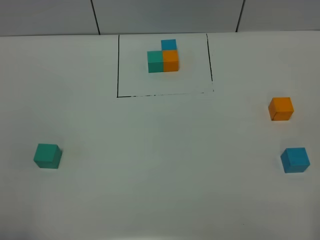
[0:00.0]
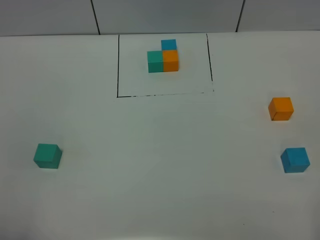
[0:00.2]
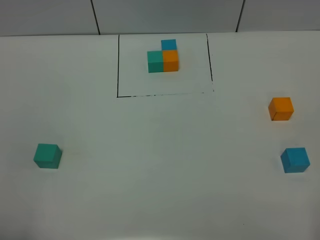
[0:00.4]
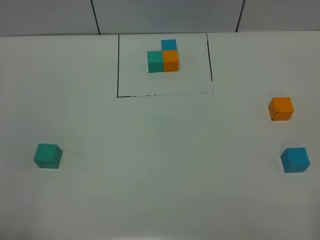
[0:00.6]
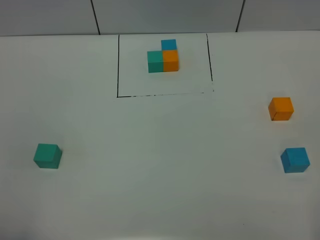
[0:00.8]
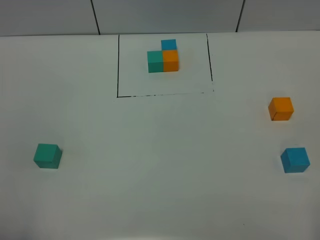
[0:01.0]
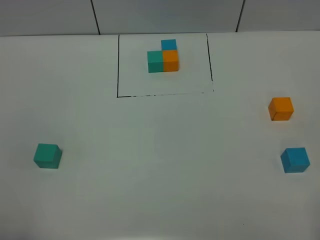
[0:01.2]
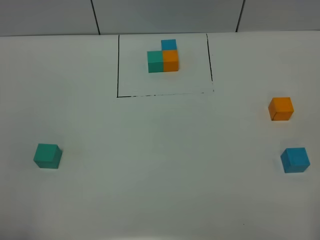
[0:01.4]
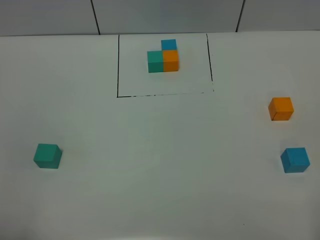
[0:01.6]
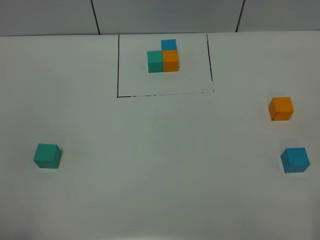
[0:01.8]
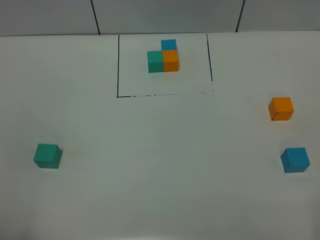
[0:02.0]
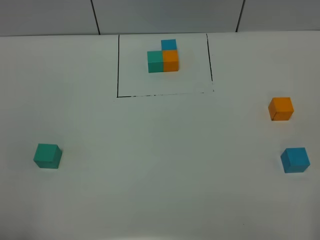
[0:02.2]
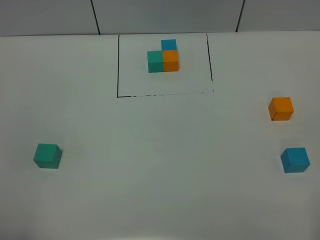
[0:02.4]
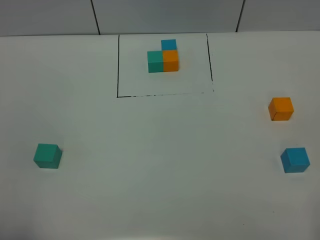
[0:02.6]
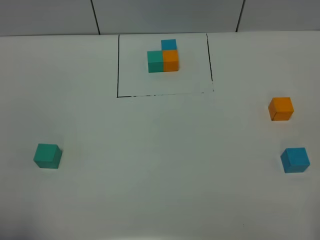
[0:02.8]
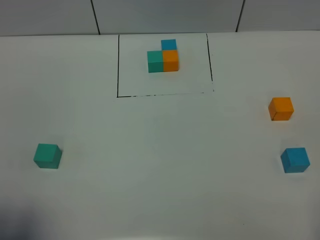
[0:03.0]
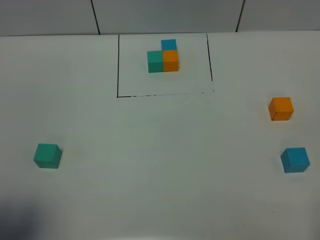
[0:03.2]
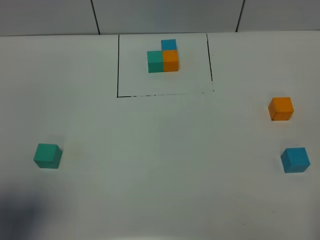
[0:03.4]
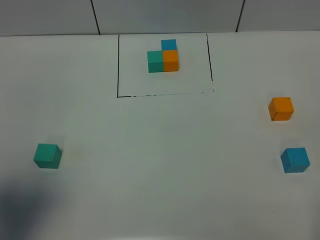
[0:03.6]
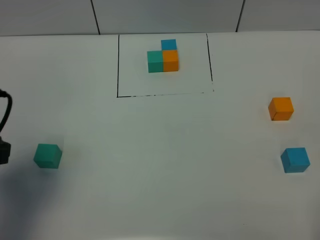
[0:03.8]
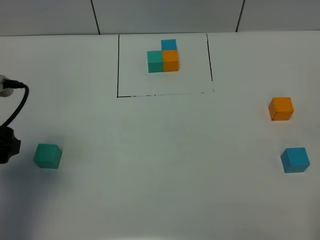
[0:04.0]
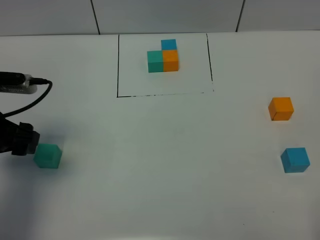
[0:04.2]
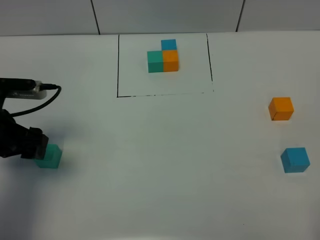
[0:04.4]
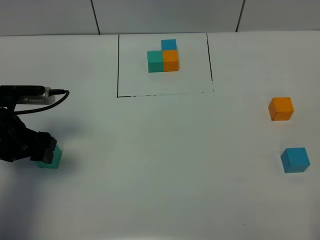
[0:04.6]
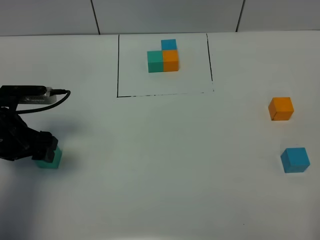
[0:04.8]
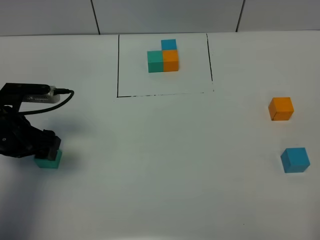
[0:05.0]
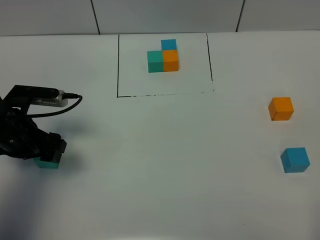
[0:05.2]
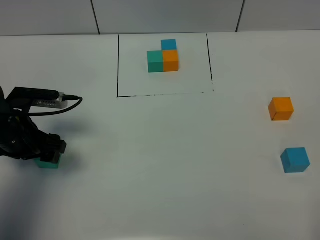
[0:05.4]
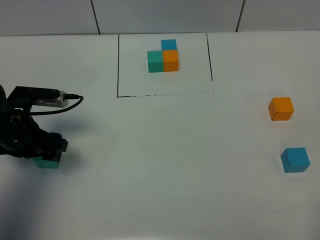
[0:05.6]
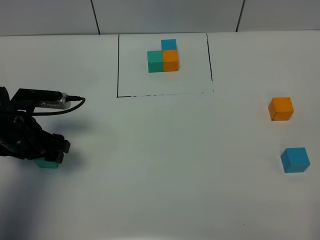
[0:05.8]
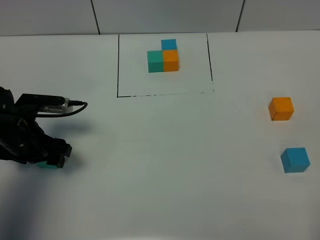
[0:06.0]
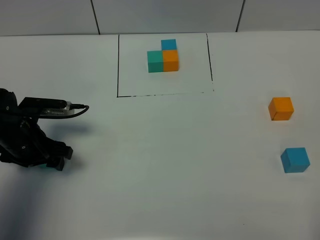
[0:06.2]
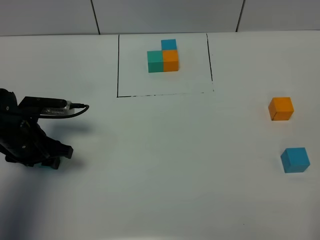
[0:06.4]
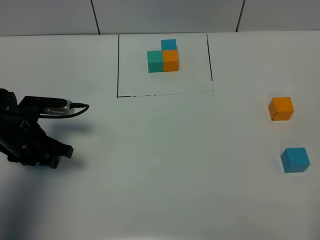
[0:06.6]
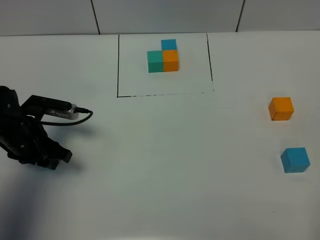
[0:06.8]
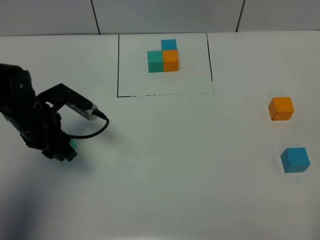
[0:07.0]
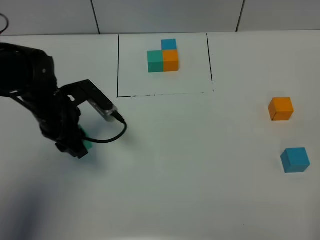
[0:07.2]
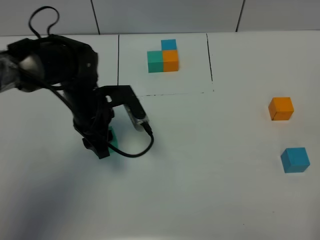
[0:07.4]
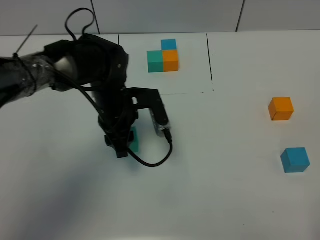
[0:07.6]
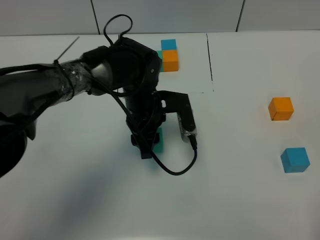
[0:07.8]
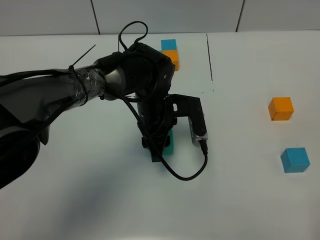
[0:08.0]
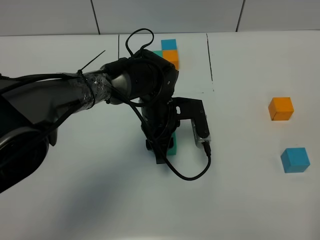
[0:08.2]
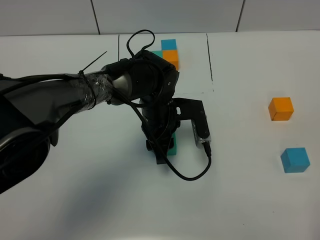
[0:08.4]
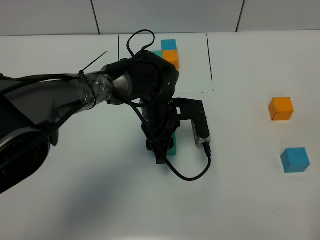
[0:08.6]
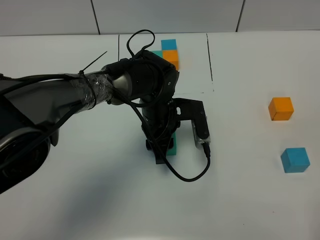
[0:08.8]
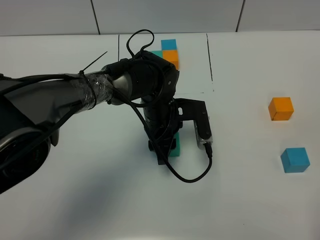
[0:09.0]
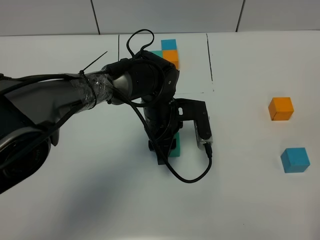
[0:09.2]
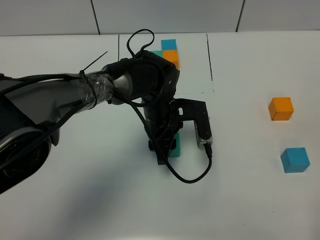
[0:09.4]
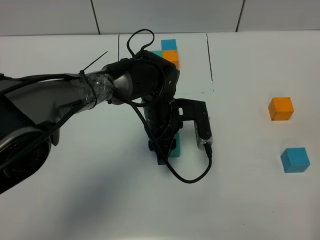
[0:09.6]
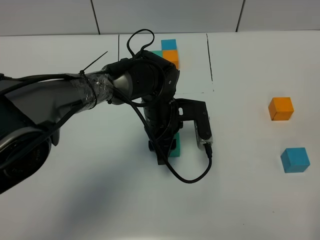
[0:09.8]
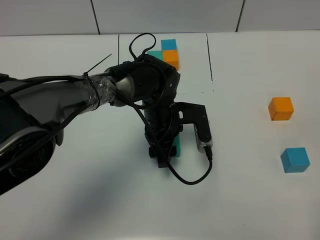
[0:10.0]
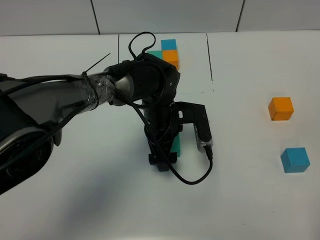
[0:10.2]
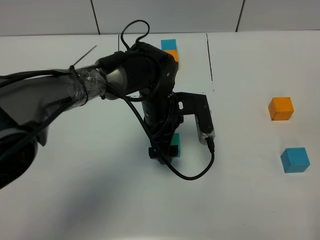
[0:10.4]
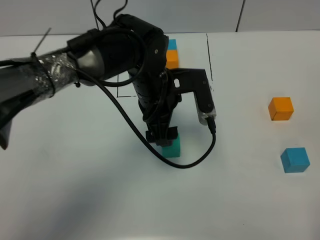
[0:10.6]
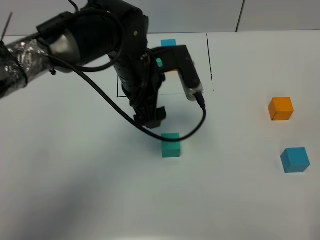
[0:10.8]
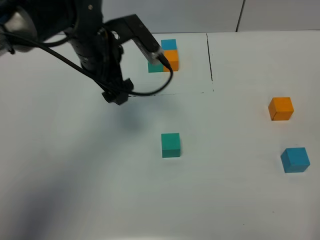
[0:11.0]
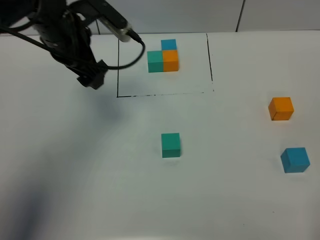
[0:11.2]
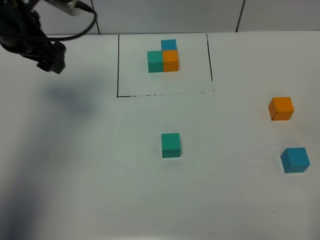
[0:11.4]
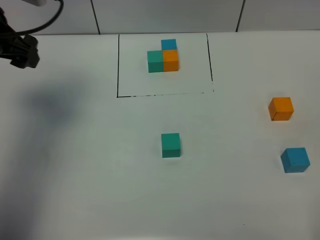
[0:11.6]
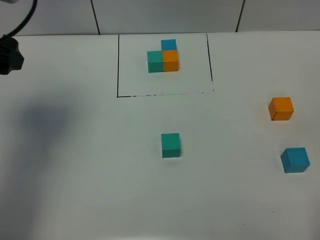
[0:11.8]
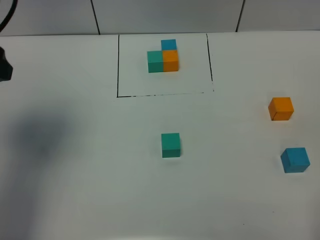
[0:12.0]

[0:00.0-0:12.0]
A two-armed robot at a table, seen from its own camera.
Task of the whole recording: According to the building block template in front, assemble the scattered blocks together.
Step, 0:00.0 to 0:10.0: Put the green build block in the center of the table.
0:00.0 to 0:01.6: Neither gripper changes place.
0:01.6 to 0:03.0: The left gripper shifts by some 5 cm.
0:03.0 to 0:04.4: The left gripper is displaced forward and downward by roughly 25 cm.
0:04.4 to 0:06.0: The left gripper goes some 5 cm downward.
0:06.0 to 0:07.6: The left gripper goes approximately 20 cm to the right, and closes its fingers.
0:07.6 to 0:09.0: The left gripper travels to the right by about 10 cm.
0:09.0 to 0:10.4: The left gripper opens up.
0:10.4 to 0:12.0: The left gripper heads to the left and upward, covering some 35 cm.

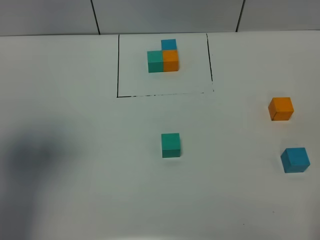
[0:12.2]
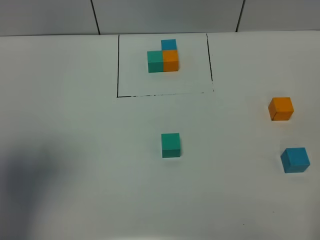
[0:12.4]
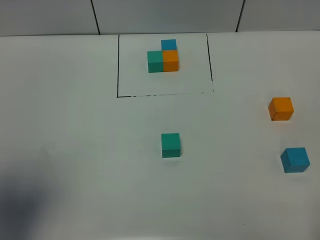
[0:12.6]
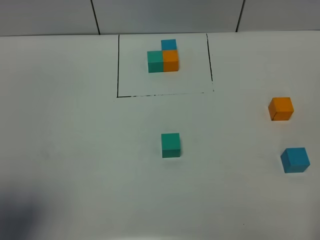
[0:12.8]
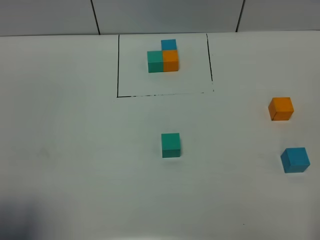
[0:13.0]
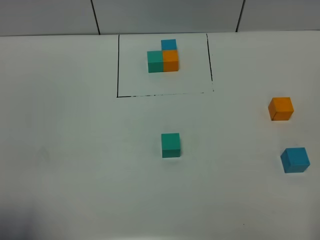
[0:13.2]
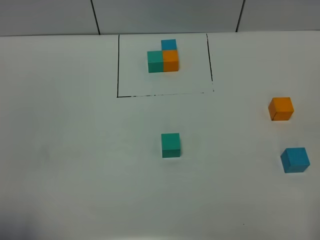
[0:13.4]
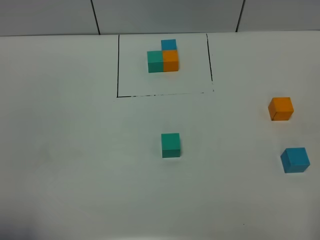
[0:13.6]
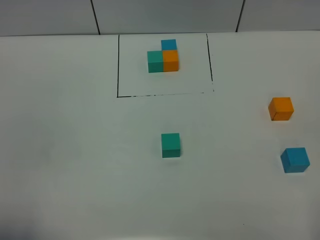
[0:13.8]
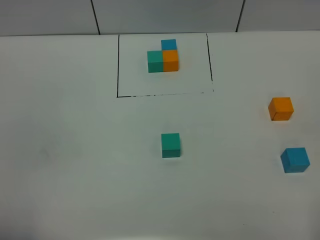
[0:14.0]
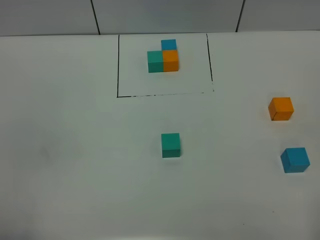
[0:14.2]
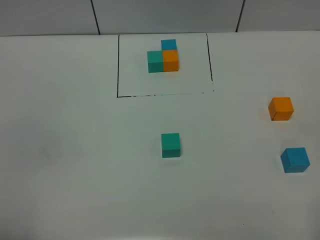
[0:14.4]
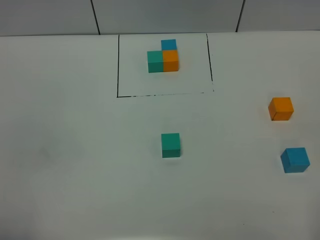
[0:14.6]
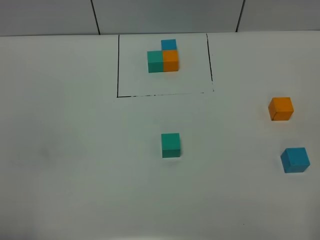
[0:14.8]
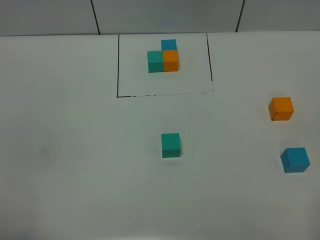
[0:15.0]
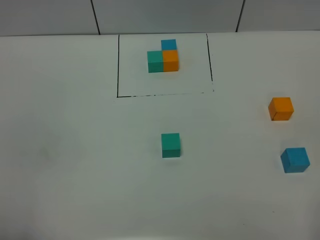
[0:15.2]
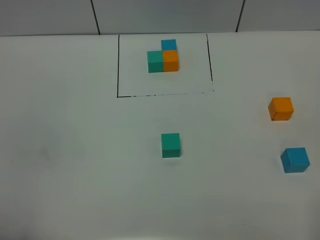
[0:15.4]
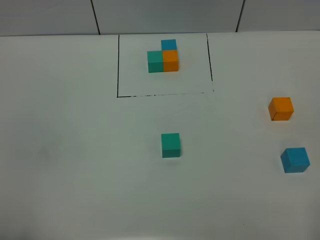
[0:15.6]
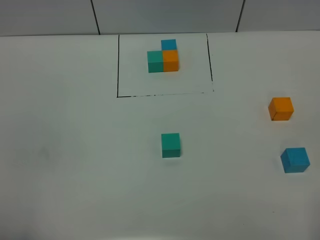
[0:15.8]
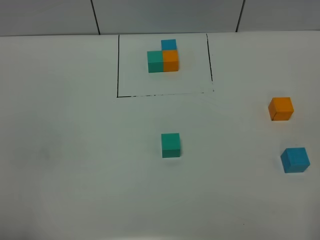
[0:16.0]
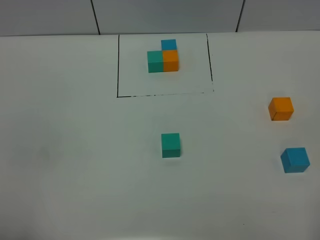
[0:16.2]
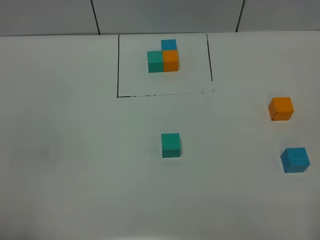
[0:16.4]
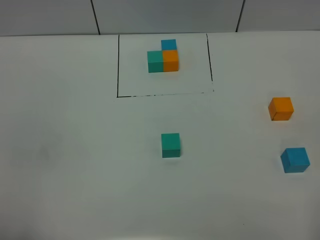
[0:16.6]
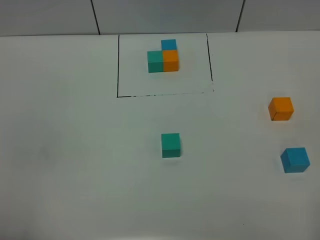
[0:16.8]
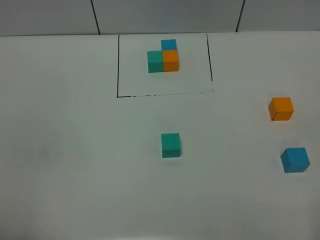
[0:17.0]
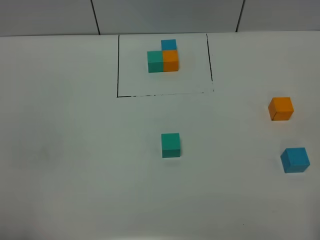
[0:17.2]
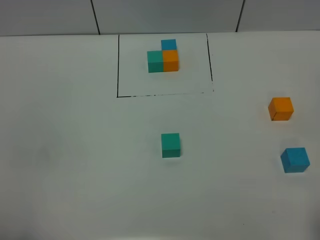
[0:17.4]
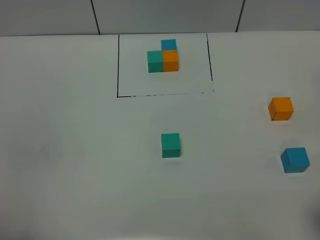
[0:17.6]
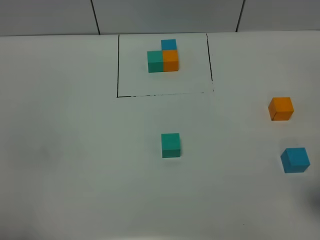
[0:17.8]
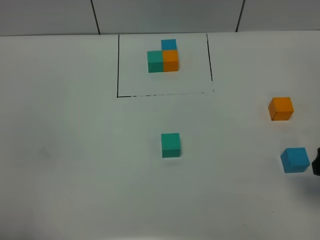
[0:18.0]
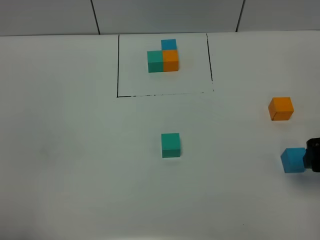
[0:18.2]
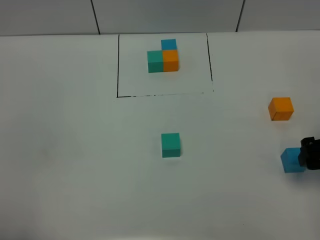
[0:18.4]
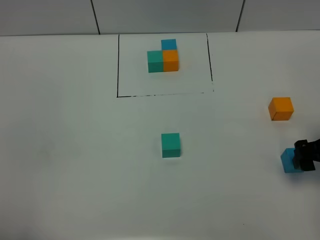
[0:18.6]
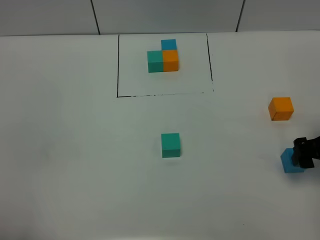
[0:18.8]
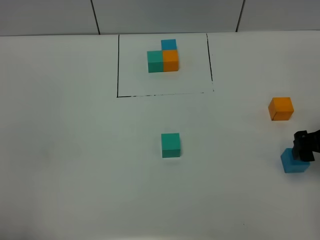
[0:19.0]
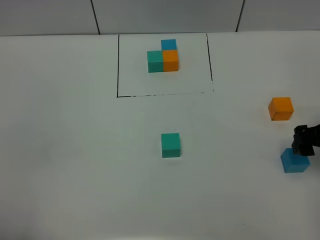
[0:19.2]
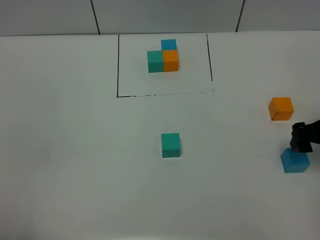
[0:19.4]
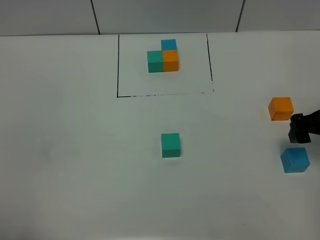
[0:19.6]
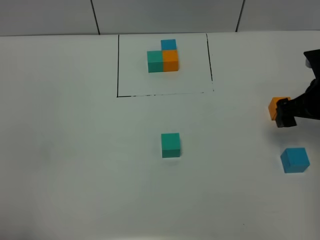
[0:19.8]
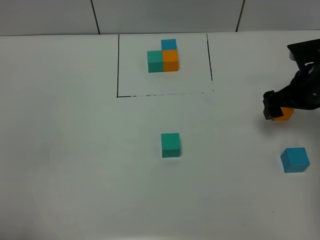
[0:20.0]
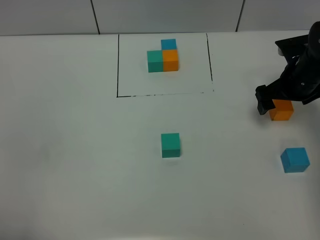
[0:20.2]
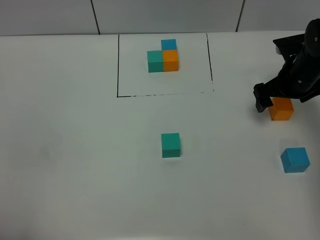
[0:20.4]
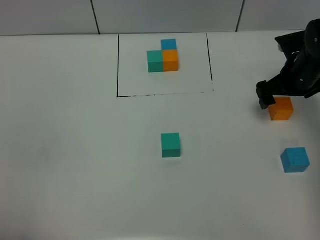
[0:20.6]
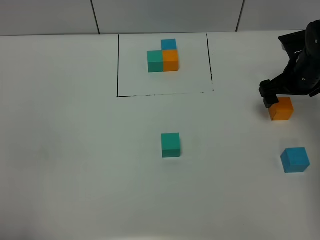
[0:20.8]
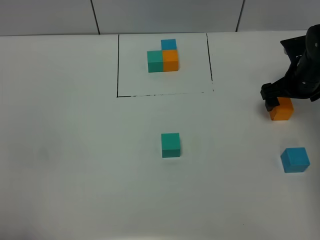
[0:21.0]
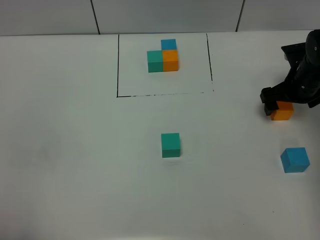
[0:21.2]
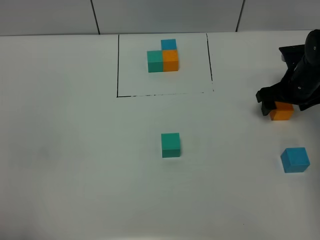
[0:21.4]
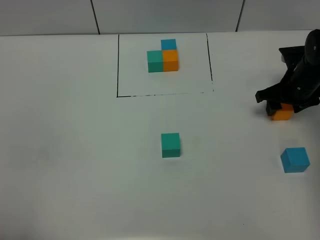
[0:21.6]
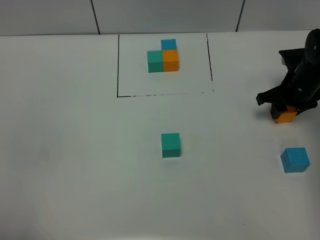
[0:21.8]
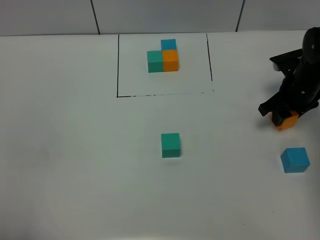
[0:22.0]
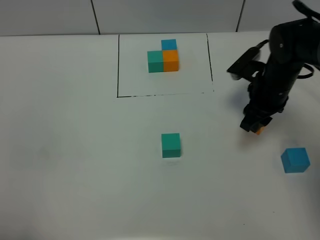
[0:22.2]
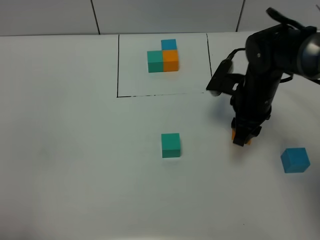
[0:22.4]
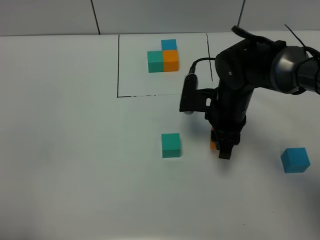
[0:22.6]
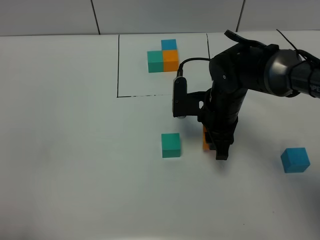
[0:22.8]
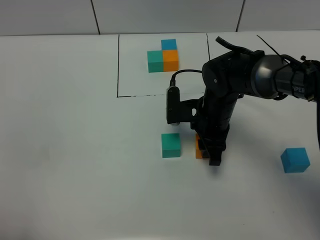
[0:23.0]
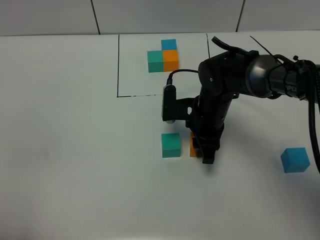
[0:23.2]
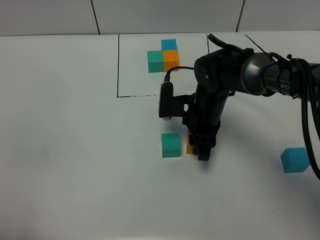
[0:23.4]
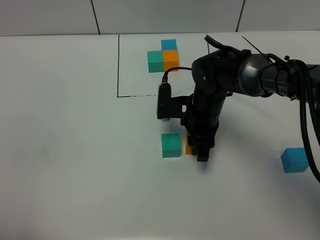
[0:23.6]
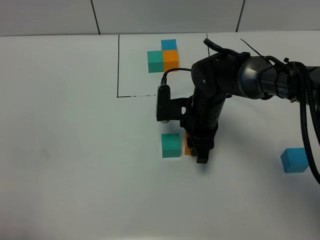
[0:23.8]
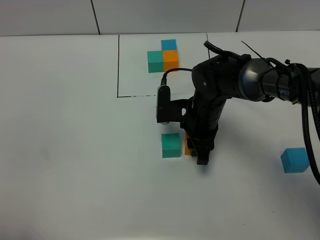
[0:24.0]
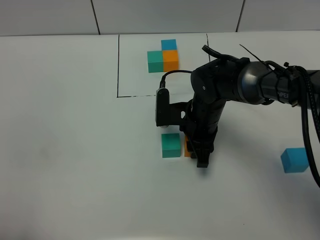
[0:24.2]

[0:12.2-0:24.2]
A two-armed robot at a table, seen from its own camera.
Task of the whole recording: According to the building block template in front, assemble the scattered blocks together.
0:12.2 to 0:13.8: The left gripper travels backward and downward by approximately 20 cm.
0:15.2 to 0:16.6: Neither gripper changes place.
0:16.6 to 0:18.2: The right gripper shifts roughly 20 cm forward.
0:18.2 to 0:19.8: The right gripper heads forward, covering roughly 10 cm.
0:19.8 to 0:21.2: The right gripper is displaced forward and downward by approximately 10 cm.
0:21.2 to 0:22.6: The right gripper moves to the left and backward, about 20 cm, and closes.
0:22.6 to 0:24.2: The right gripper shifts by some 5 cm.
